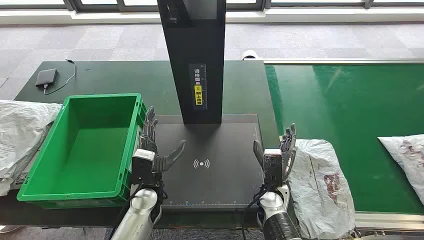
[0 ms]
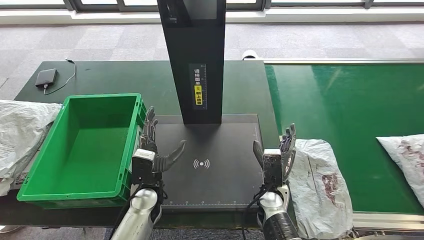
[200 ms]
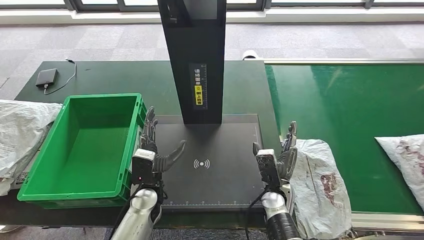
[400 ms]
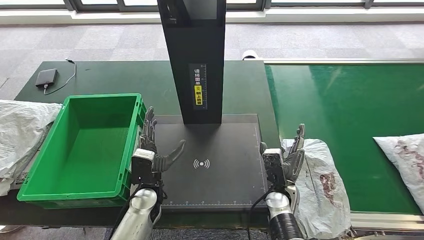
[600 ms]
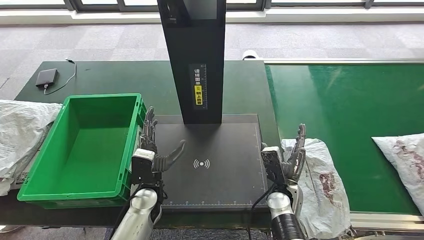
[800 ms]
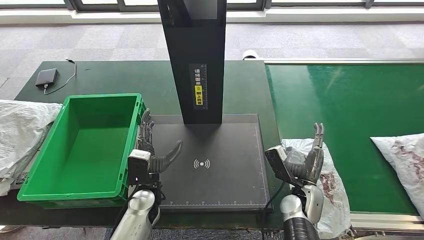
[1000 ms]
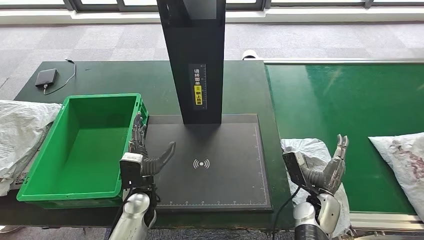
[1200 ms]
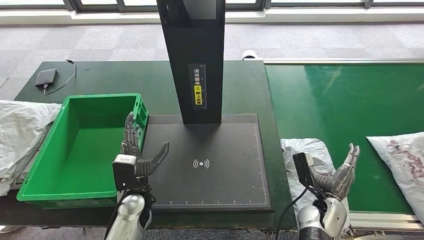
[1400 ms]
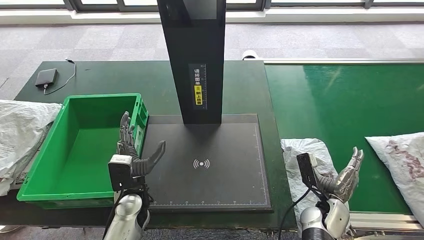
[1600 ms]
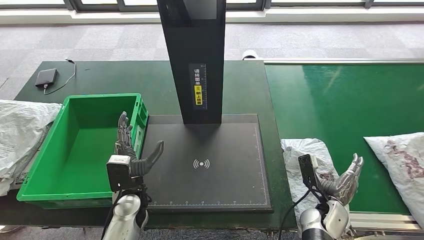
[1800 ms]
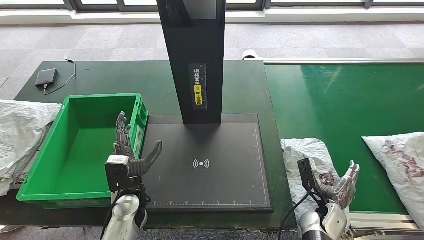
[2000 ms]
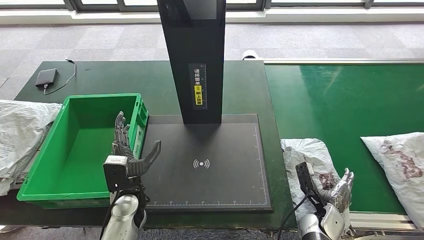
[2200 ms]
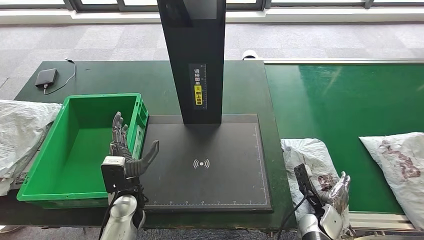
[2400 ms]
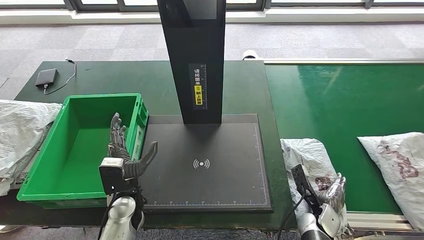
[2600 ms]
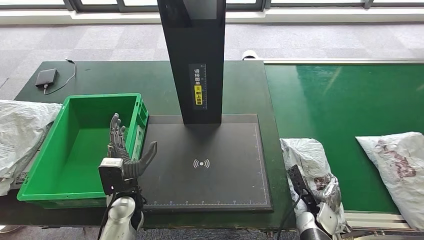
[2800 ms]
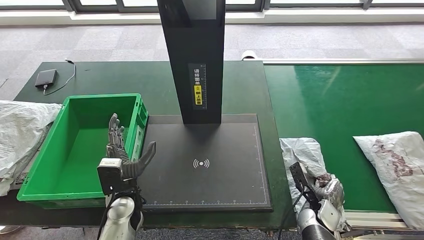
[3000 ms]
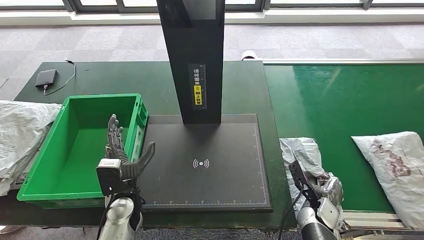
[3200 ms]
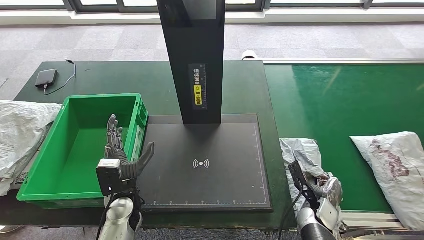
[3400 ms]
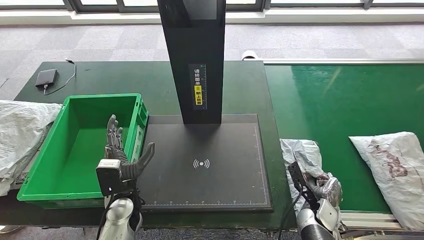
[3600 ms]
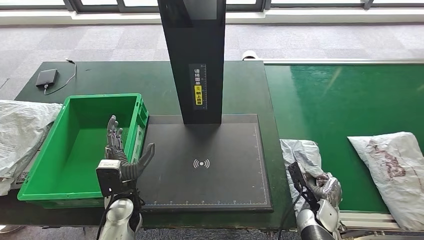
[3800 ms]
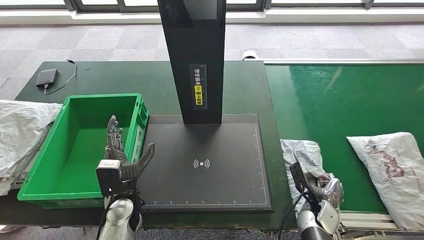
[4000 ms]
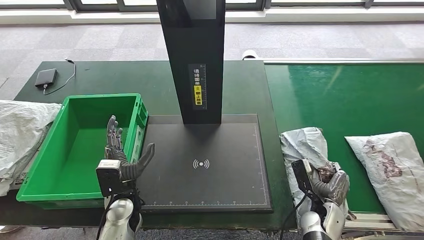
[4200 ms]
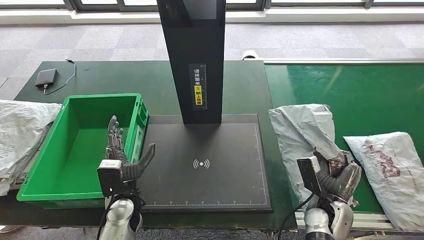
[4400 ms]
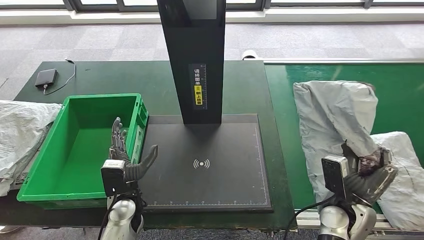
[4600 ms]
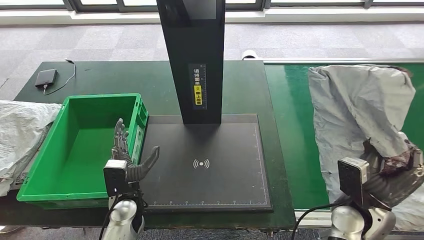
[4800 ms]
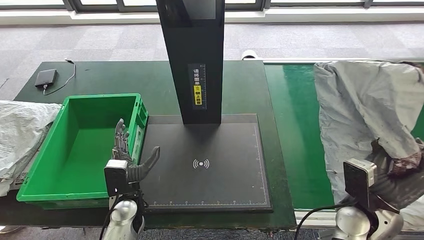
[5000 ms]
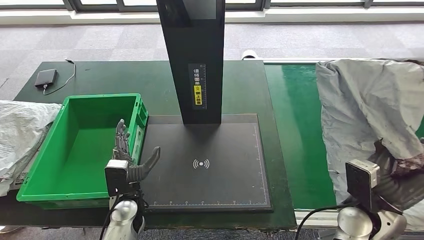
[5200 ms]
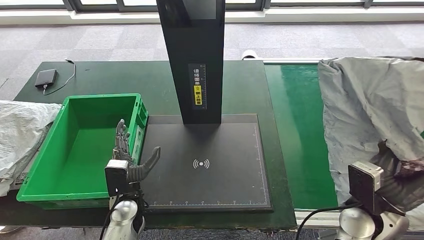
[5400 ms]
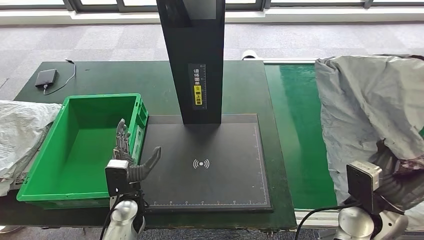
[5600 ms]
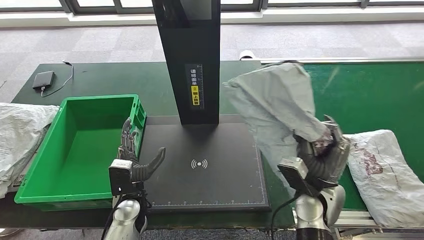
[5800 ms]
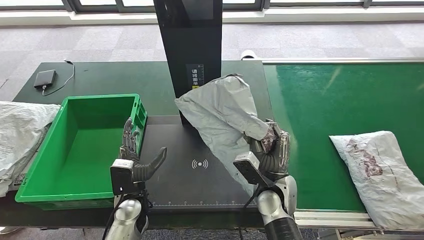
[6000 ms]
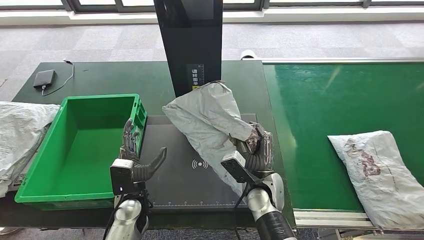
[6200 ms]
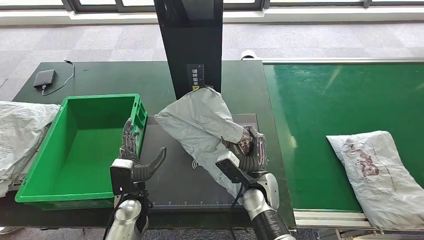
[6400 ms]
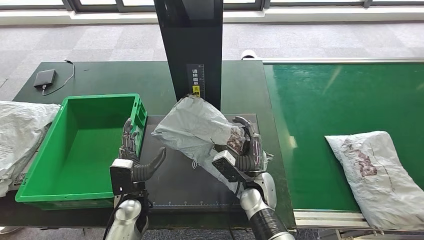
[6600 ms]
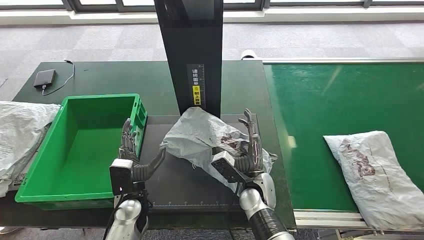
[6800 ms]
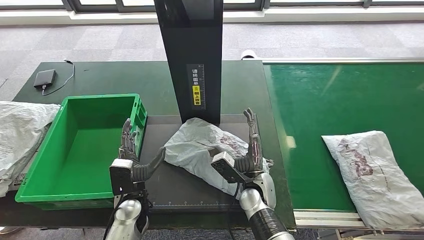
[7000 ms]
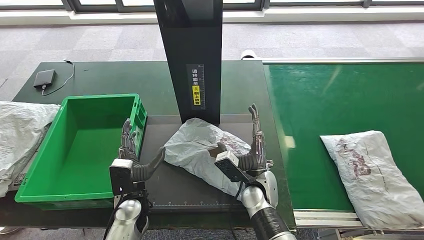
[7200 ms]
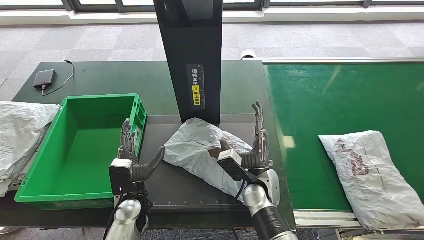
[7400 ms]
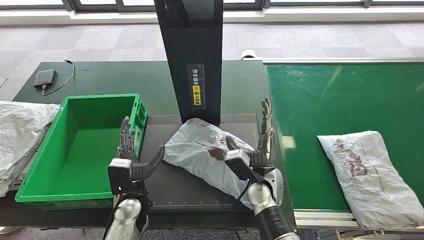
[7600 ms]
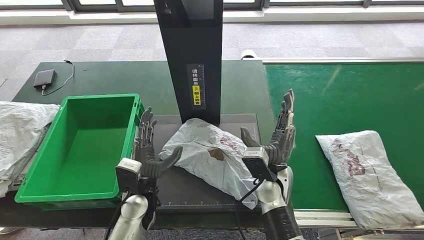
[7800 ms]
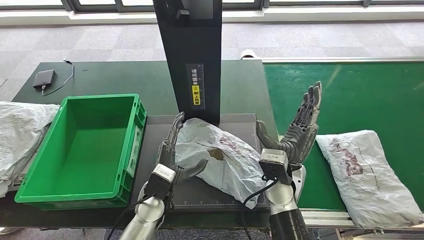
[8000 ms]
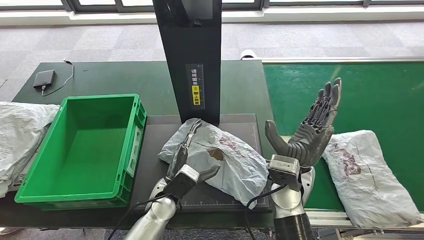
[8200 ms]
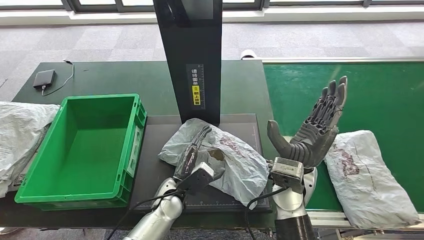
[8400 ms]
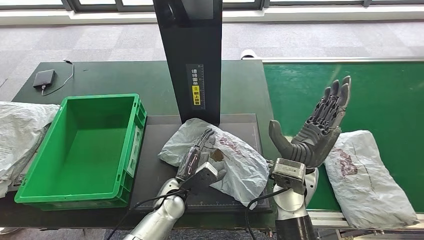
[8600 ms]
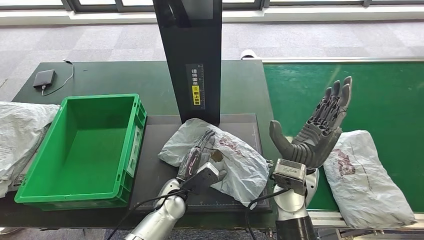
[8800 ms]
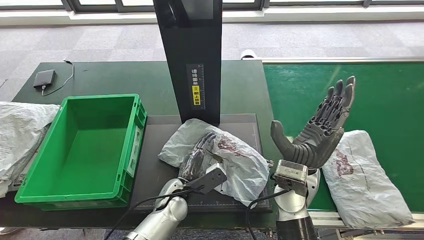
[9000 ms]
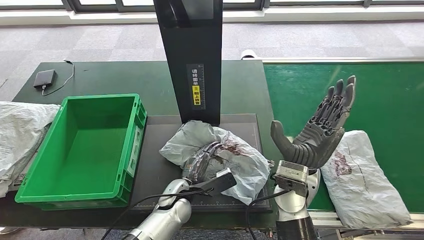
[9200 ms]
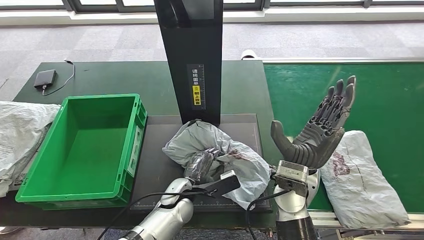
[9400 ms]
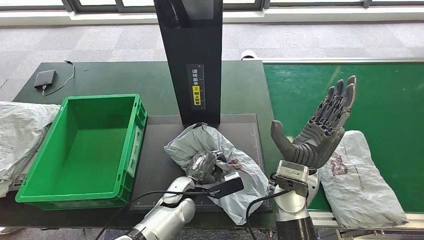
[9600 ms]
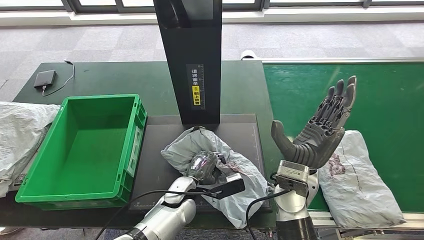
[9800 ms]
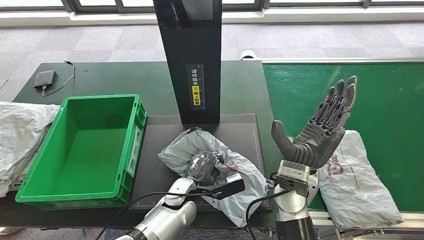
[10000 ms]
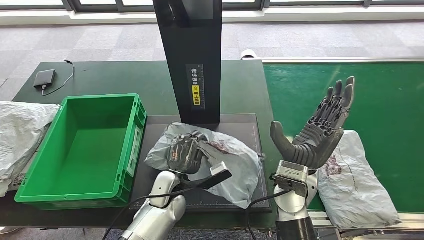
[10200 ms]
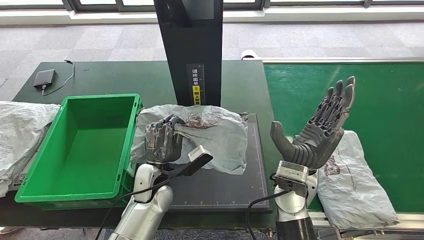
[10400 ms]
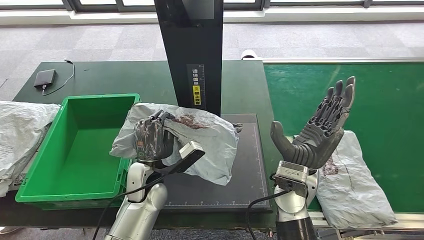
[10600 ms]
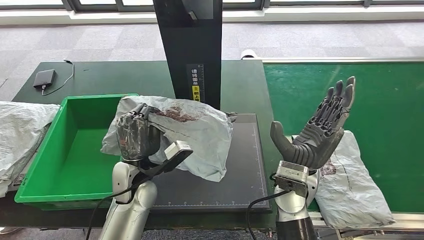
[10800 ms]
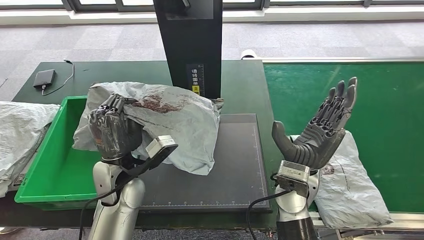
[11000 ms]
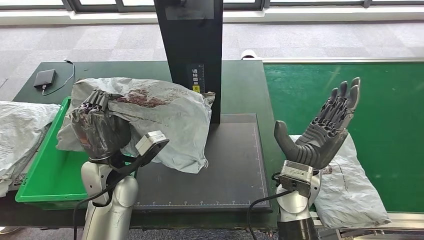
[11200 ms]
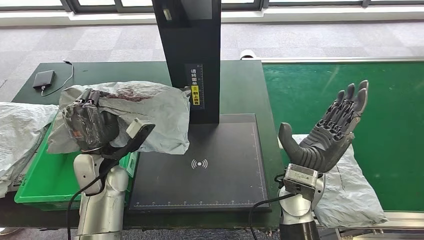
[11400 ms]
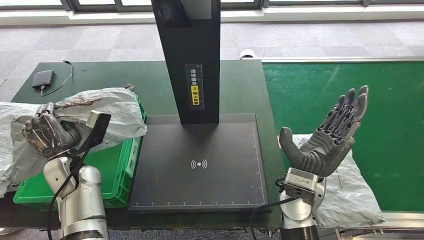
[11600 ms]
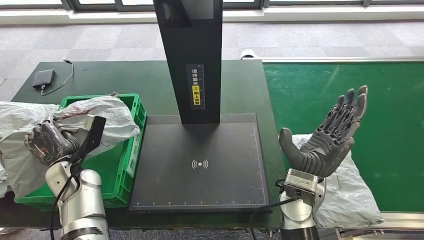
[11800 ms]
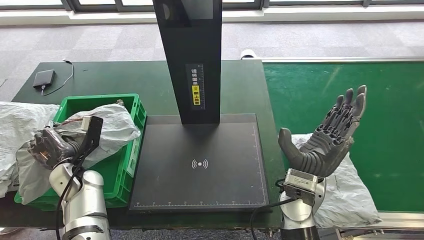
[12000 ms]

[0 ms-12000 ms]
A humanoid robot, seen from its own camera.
Step, 0 ms to 4400 ms: Take the parcel off the conveyor belt.
Step, 4600 ms to 7800 ms: Place the parcel onto the inbound machine.
Step, 8000 ms to 11400 ms: Pick up the parcel from the inbound machine.
3000 ms to 4400 ms: The right hand heads upward, covering roughly 5 cm.
6000 ms to 7600 ms: The hands make only small movements.
7600 ms to 9000 ms: The left hand is displaced to the right by approximately 10 cm; the right hand moves upward, some 10 cm.
9000 ms to 10400 ms: The left hand shifts about 5 cm upward.

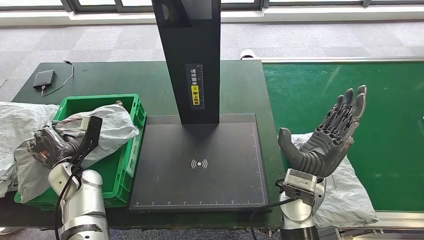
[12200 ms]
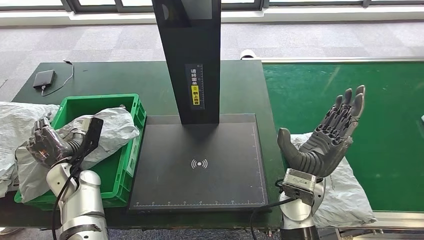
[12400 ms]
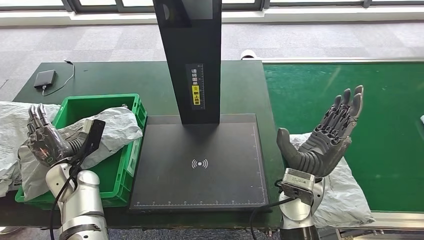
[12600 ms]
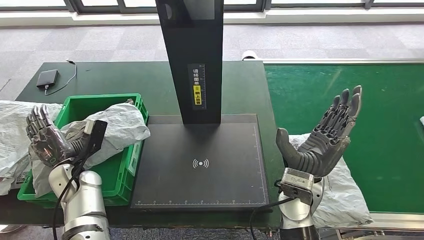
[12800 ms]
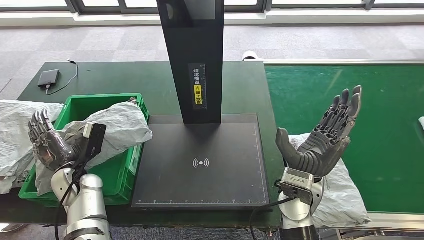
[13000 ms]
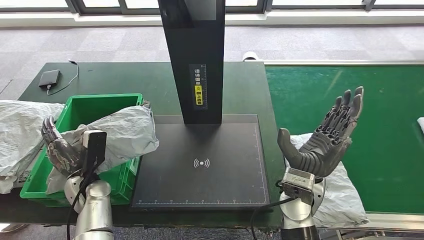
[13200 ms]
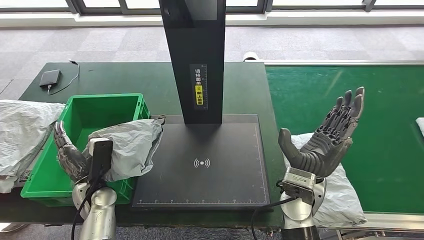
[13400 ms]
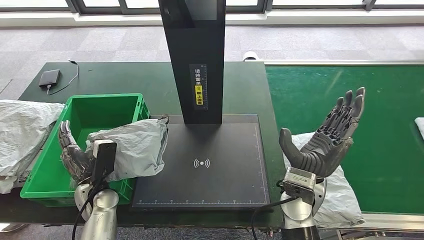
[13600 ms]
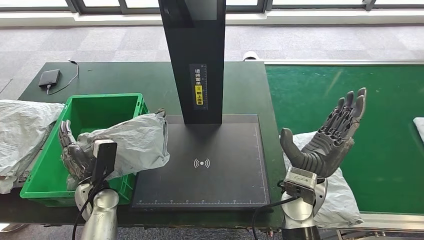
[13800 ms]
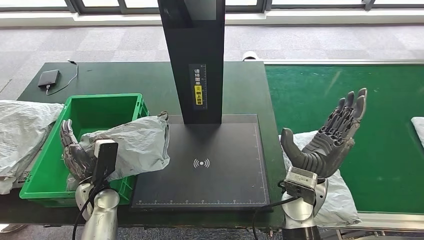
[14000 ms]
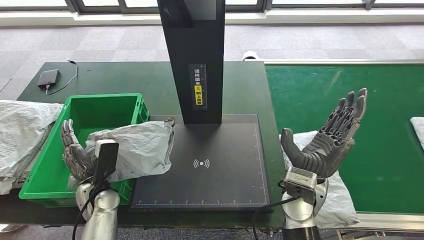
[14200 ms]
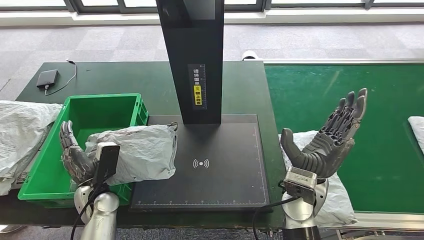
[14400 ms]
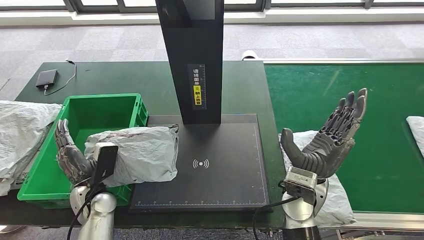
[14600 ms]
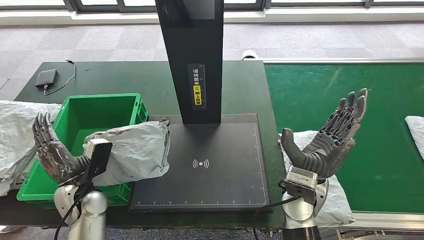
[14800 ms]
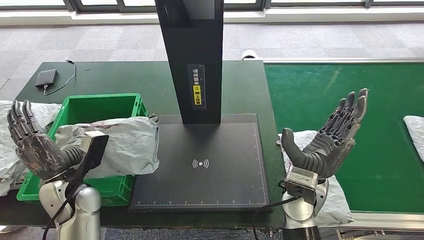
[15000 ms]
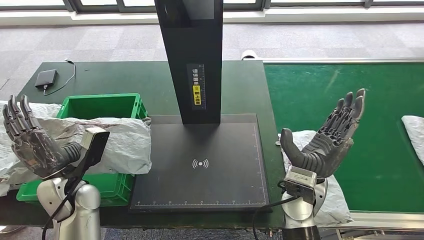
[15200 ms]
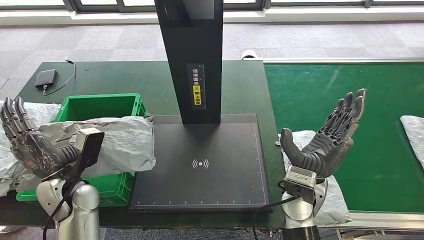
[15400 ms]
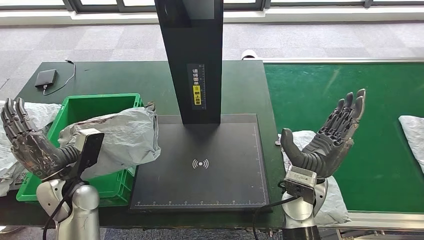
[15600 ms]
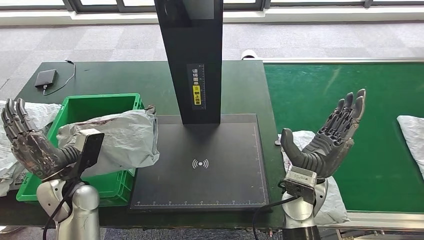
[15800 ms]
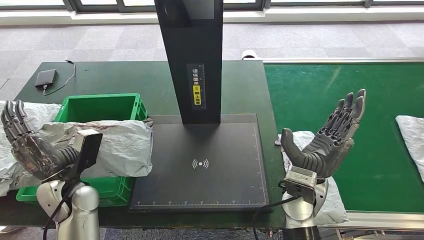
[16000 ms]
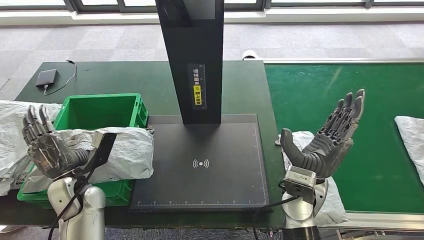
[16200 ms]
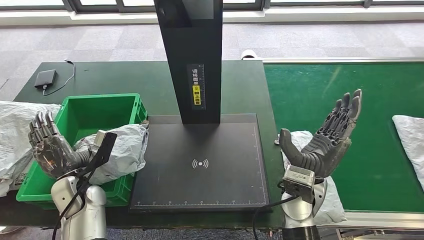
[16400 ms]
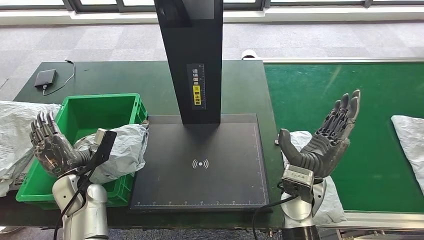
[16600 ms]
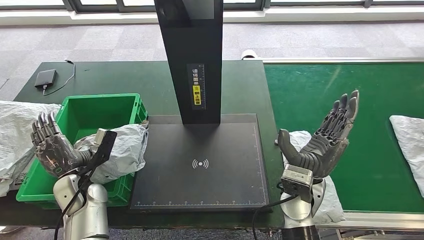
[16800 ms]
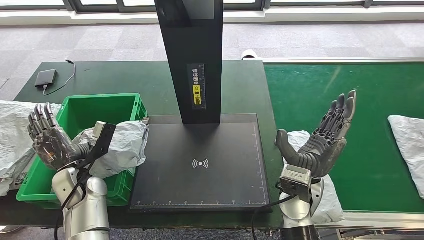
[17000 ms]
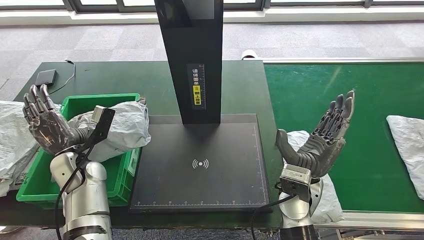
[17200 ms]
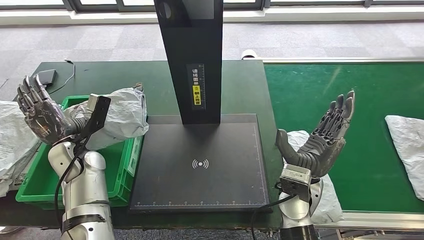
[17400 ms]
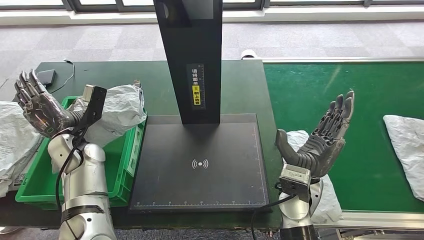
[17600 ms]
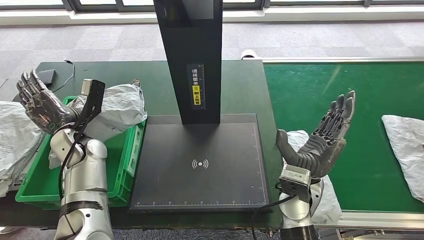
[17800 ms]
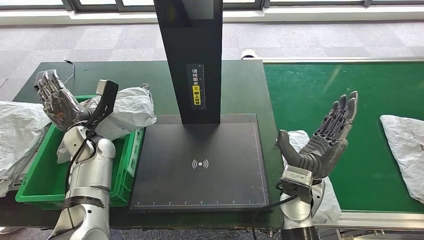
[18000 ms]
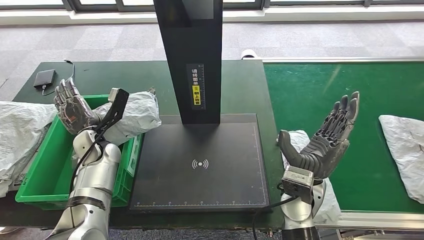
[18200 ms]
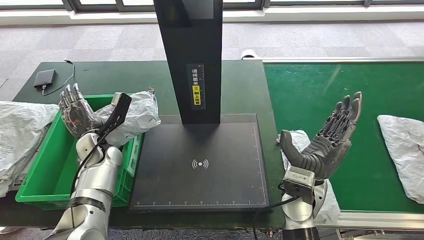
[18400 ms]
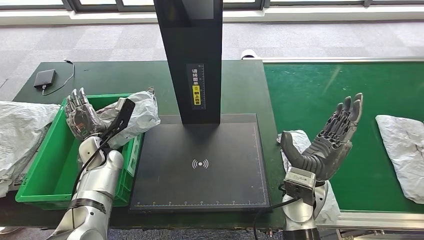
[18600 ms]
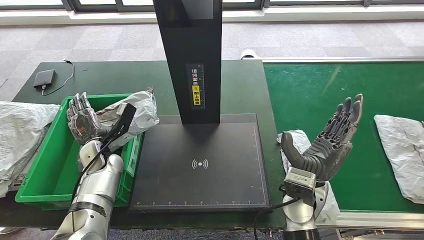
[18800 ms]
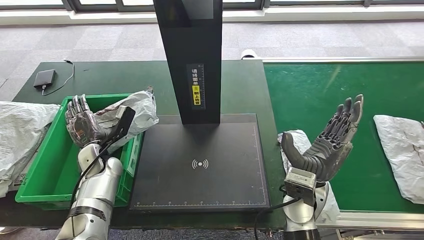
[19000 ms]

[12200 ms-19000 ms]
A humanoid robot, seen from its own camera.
Step, 12200 ms to 16400 ms: Put the parcel inside the courier box.
15000 ms to 16200 ms: There are only small adjustments of the hands.
17600 ms to 19000 ms: The left hand is displaced downward by some 5 cm.
